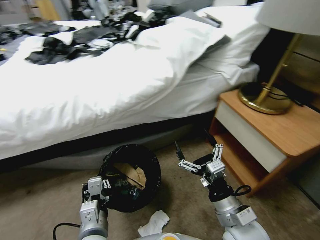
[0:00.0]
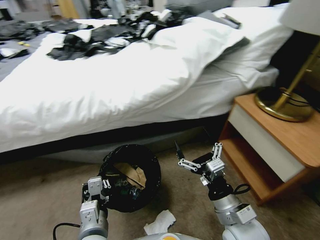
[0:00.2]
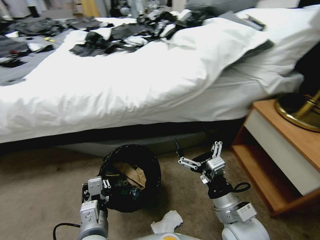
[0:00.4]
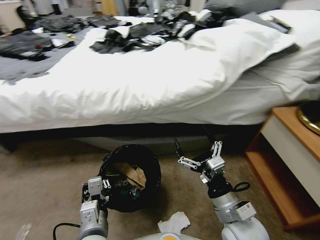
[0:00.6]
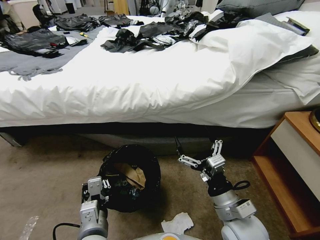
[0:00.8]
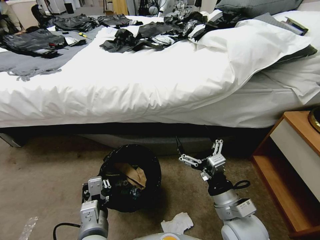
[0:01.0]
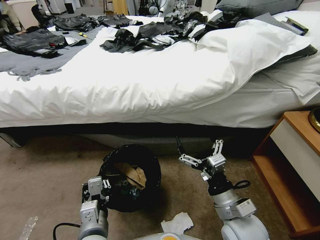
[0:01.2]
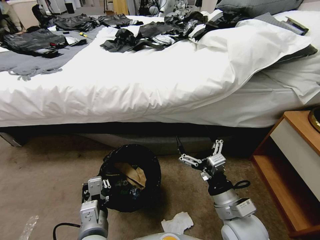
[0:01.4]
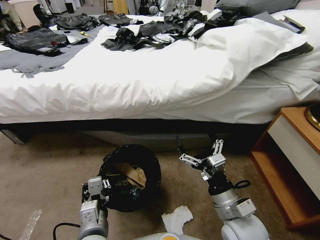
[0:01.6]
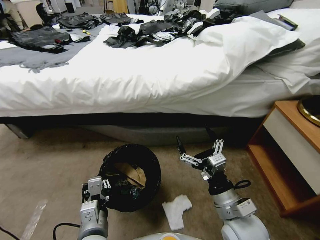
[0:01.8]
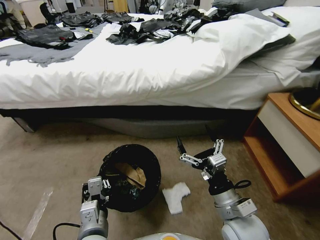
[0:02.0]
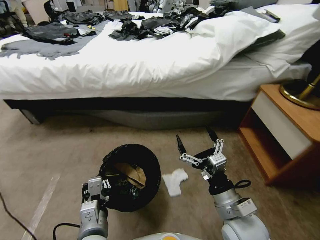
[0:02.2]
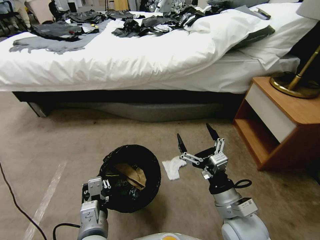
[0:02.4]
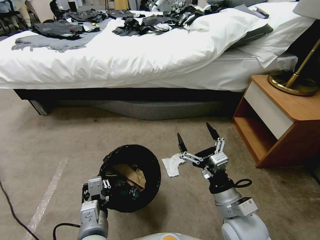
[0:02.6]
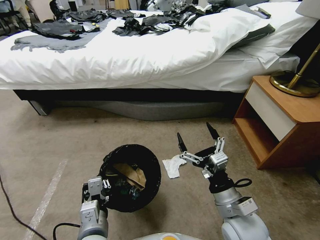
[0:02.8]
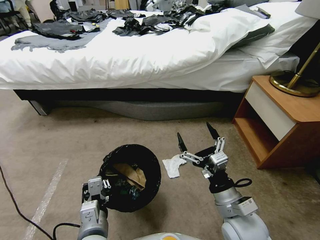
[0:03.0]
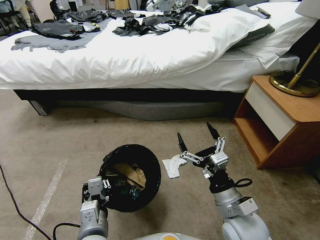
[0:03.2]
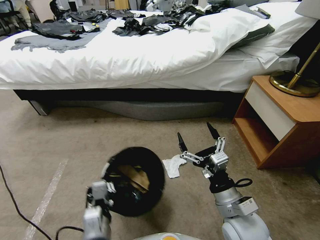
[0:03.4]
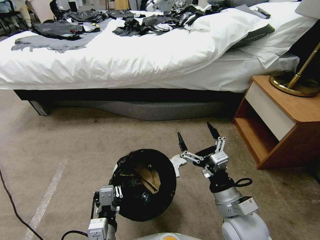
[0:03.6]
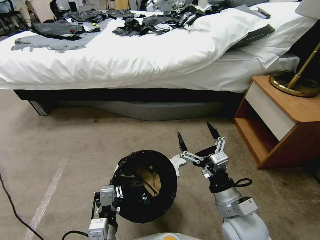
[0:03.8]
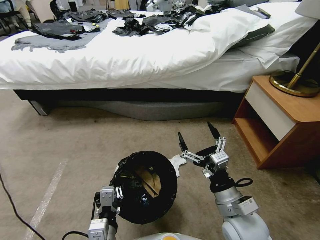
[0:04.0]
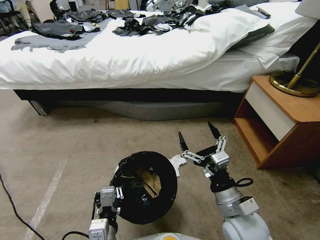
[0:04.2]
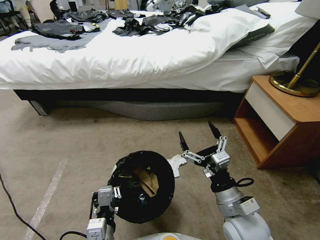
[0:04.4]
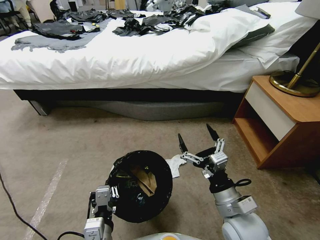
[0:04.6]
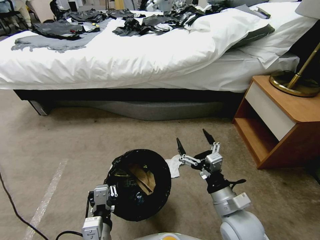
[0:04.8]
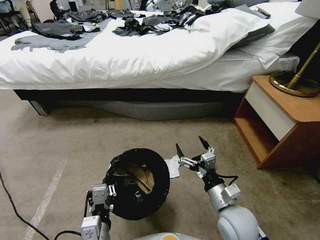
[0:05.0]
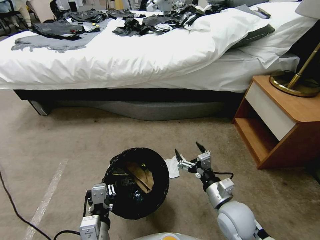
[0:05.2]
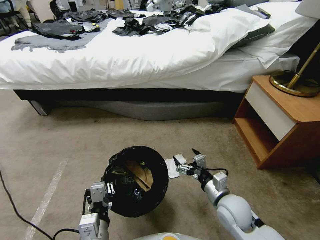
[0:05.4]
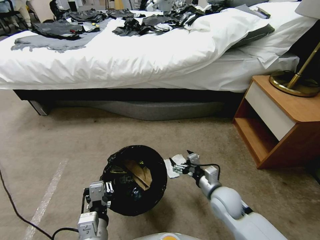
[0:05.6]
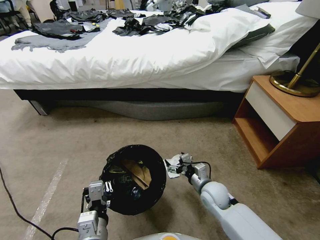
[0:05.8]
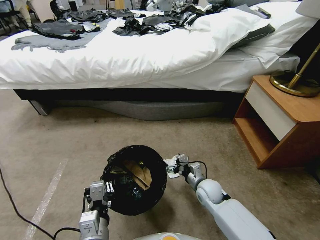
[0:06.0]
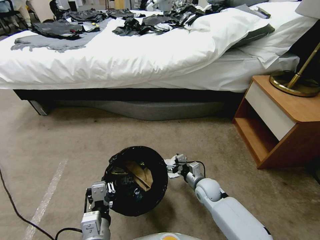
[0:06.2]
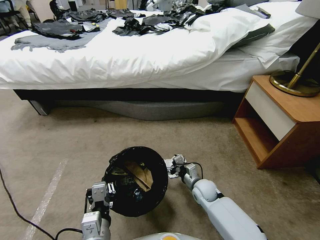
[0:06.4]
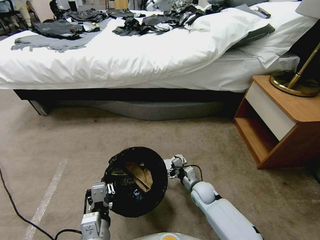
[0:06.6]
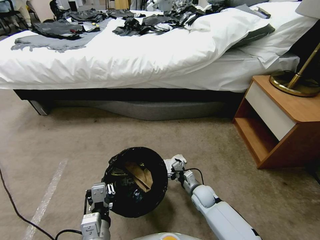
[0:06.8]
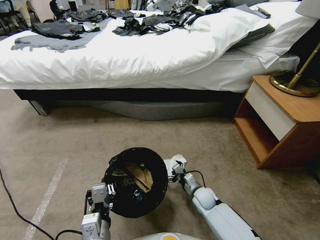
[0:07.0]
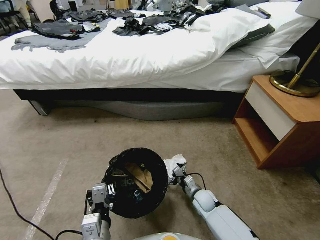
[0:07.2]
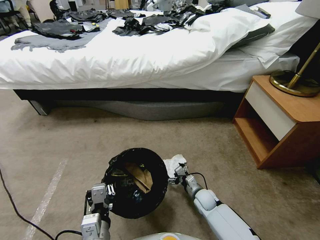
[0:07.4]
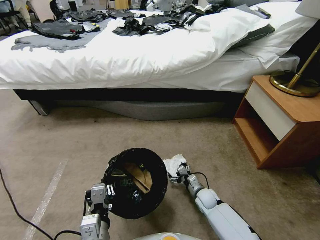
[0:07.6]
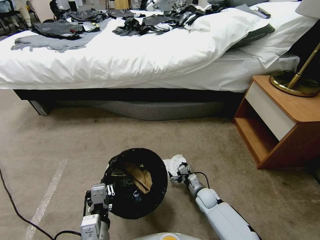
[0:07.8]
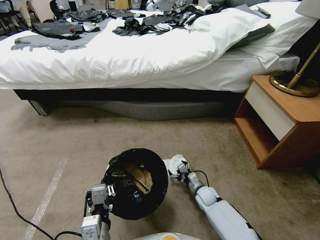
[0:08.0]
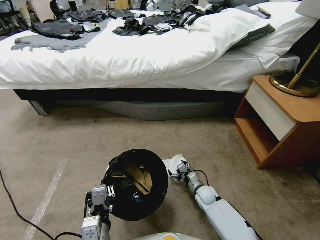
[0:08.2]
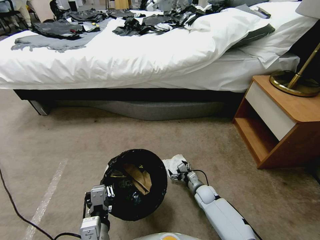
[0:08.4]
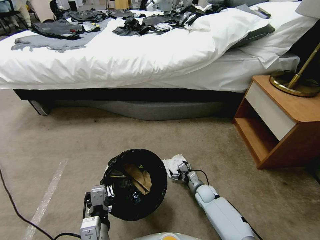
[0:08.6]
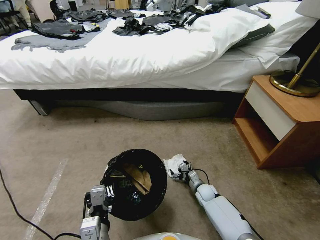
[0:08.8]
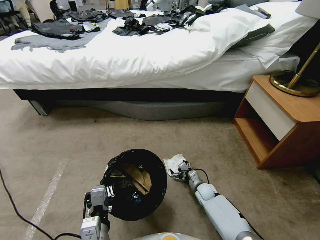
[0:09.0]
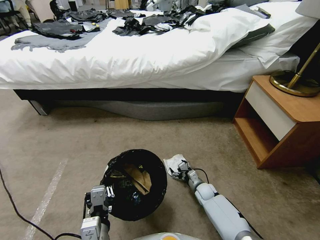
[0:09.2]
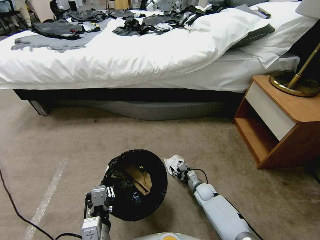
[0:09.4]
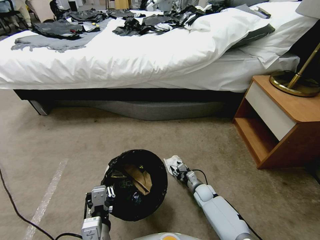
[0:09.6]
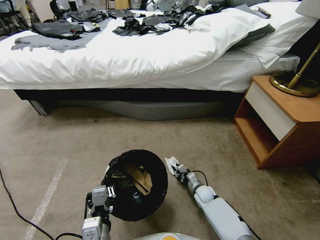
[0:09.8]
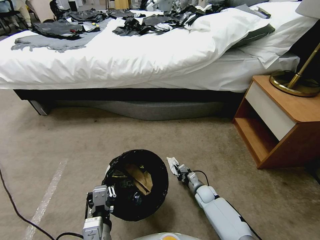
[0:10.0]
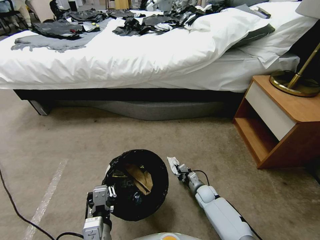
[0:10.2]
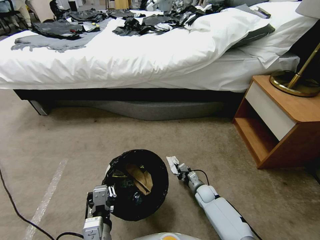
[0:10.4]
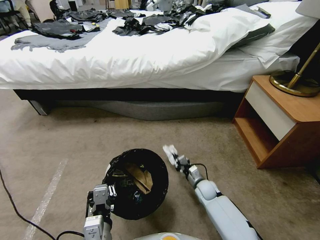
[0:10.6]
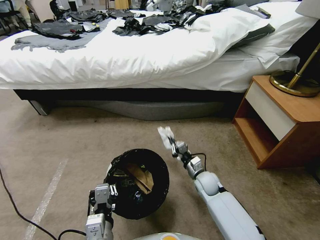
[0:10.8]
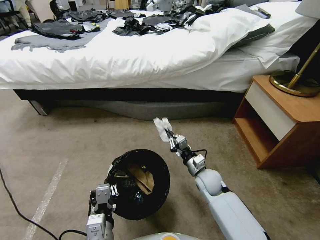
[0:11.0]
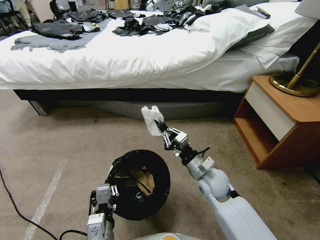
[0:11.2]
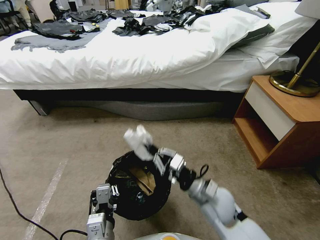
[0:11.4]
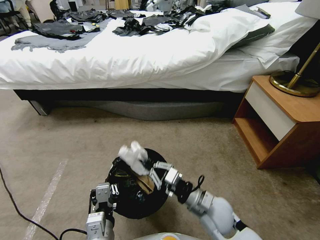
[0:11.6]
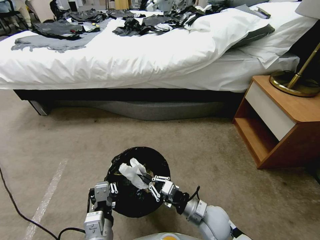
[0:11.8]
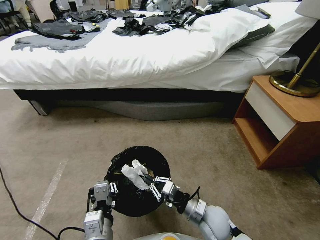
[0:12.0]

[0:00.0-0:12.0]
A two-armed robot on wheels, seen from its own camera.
Task of the whole recording: Pick up the trash bin, then pick up the garbage from the floor and place it into the trash bin.
0:03.0 to 0:04.4: The grippers move only a little.
0:04.4 to 0:06.0: The right gripper moves downward and forward, roughly 20 cm.
0:06.0 to 0:07.6: The right gripper moves downward, some 10 cm.
0:07.6 to 0:09.0: There are only small adjustments of the grippers.
0:09.0 to 0:10.4: The right gripper closes its fingers.
0:10.4 to 0:12.0: The right gripper shifts about 25 cm upward and backward.

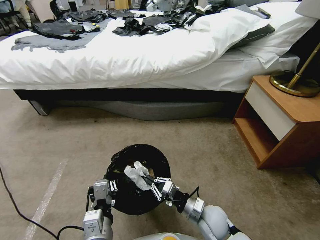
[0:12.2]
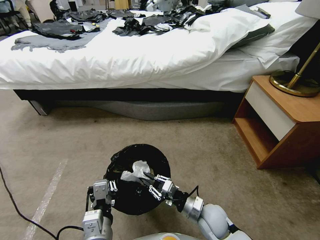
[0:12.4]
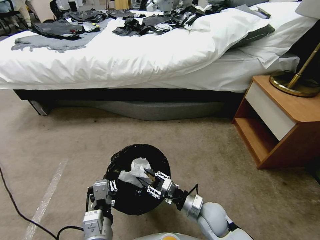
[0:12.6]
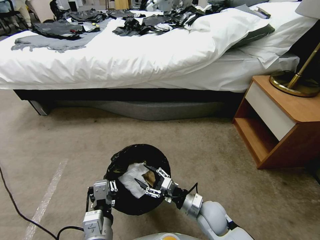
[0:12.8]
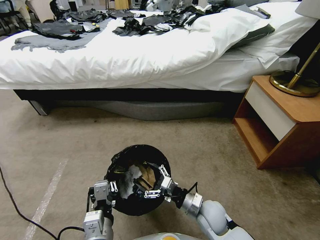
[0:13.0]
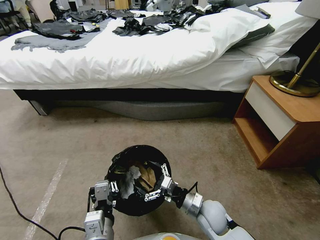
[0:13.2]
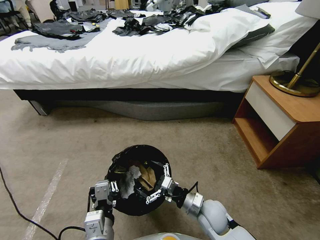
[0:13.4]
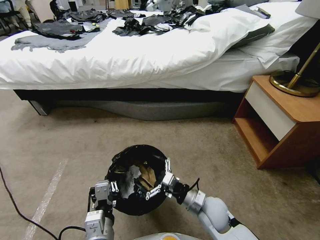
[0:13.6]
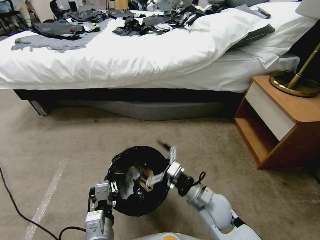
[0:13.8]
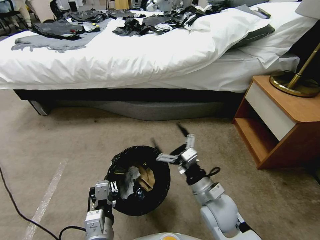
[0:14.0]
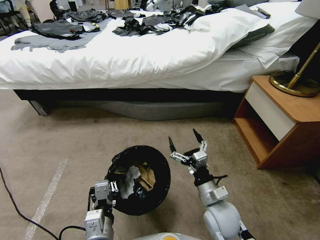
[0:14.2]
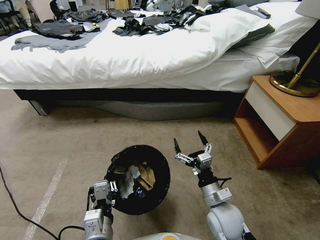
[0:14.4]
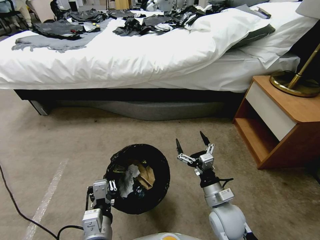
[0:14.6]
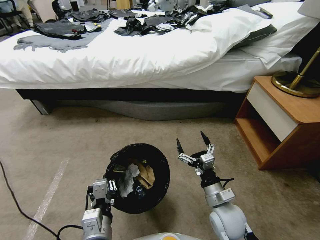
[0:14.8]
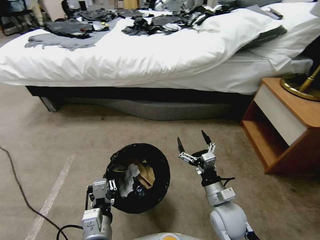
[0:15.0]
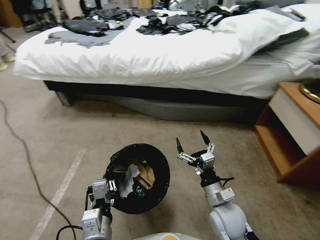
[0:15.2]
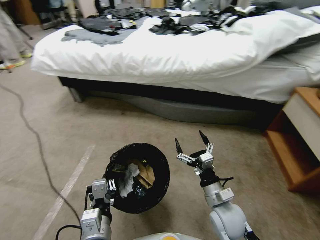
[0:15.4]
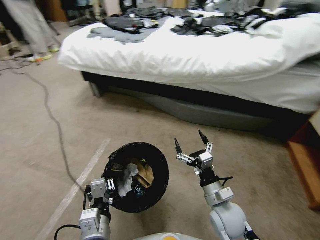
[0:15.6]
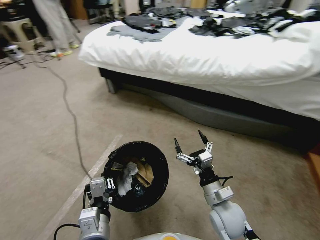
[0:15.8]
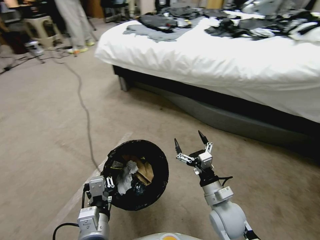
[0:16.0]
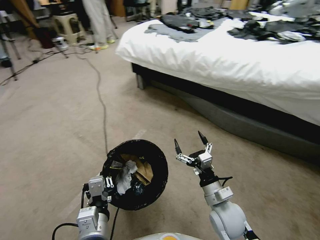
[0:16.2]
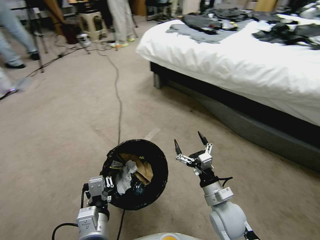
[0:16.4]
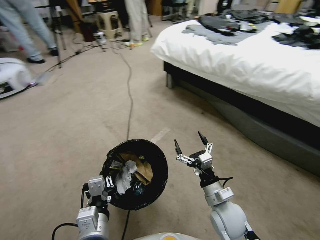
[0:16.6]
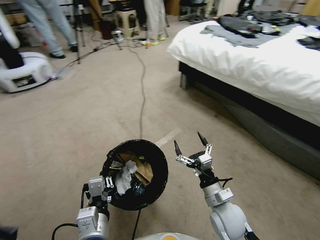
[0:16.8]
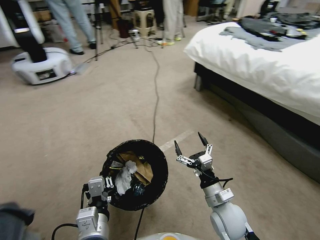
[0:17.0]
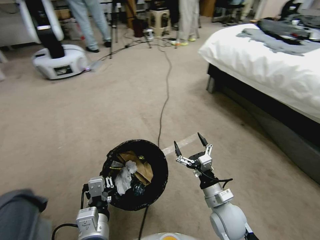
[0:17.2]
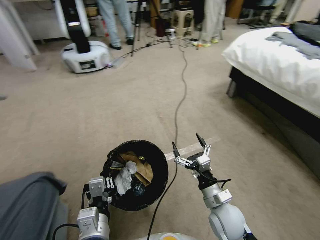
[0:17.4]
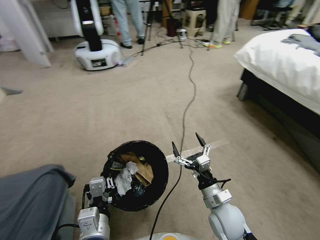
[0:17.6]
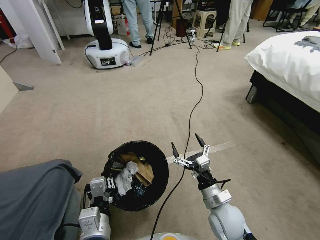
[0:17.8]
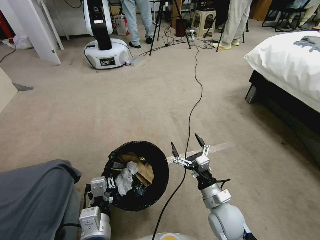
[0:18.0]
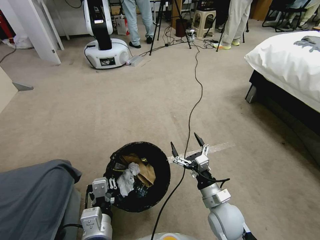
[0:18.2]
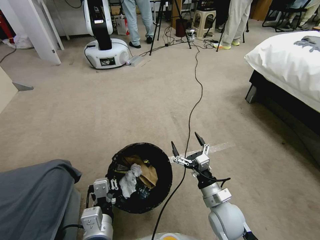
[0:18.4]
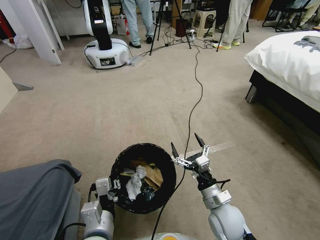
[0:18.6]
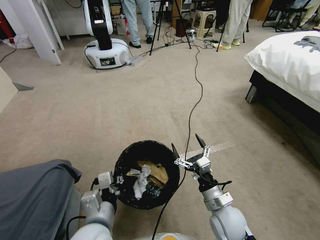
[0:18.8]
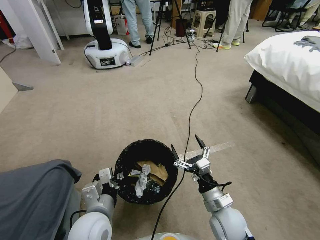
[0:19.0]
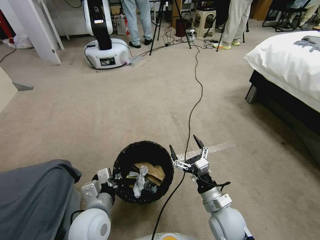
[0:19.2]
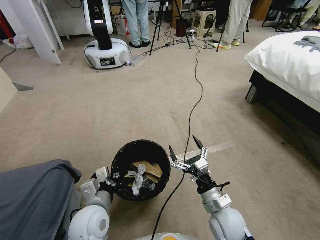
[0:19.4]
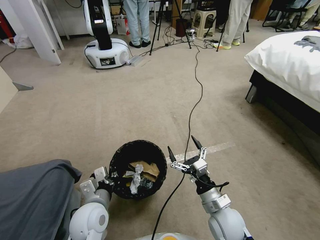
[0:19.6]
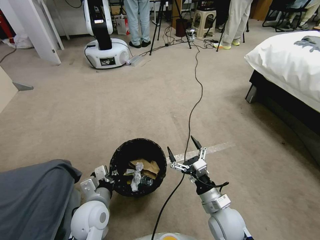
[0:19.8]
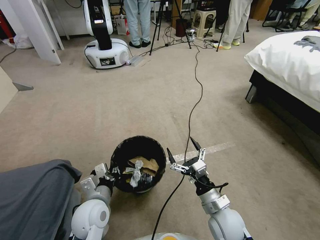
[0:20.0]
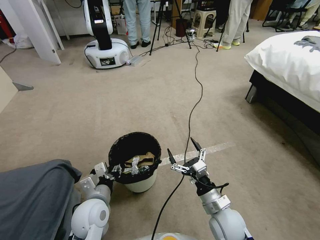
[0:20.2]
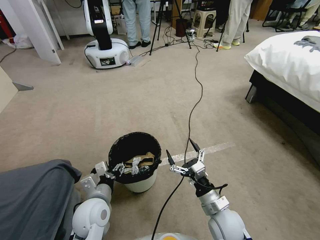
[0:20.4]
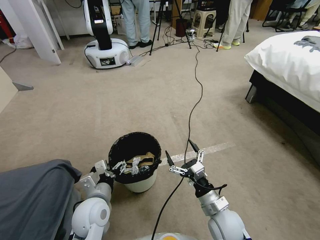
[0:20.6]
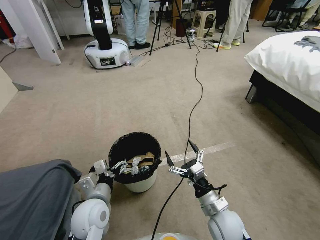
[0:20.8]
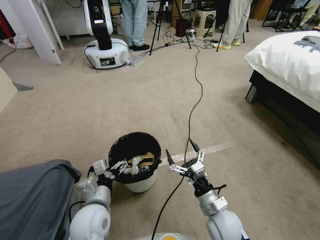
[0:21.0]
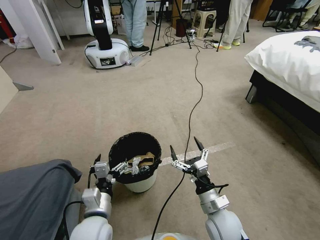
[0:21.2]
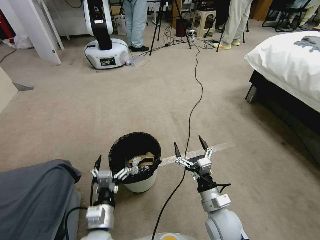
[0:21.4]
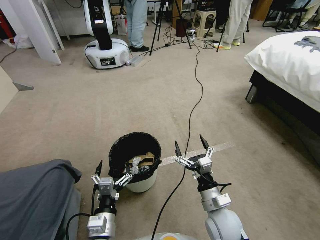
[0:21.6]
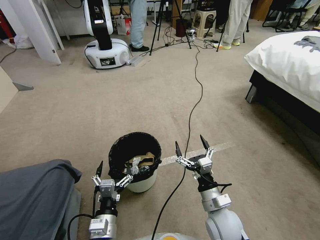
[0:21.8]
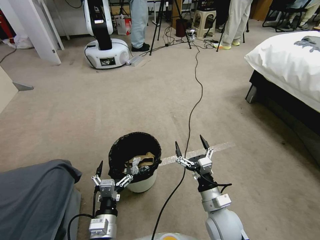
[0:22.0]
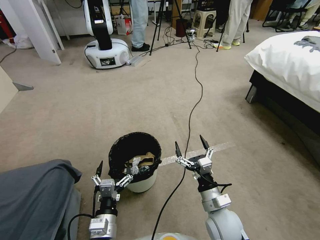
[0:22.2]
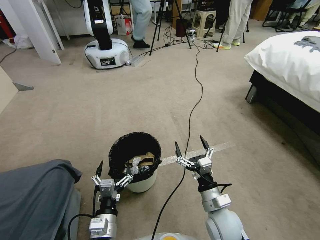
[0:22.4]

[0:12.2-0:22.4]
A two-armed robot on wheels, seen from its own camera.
Task of the whole recording: Pick up the trash bin, then pick up the garbage from the floor and place it into the trash bin.
0:12.2 to 0:13.6: The right gripper opens its fingers.
0:13.6 to 0:15.2: The right gripper heads upward, covering about 5 cm.
0:19.4 to 0:21.0: The left gripper heads forward and downward, covering roughly 10 cm, and opens its fingers.
0:21.0 to 0:22.4: The left gripper shifts approximately 10 cm backward.
